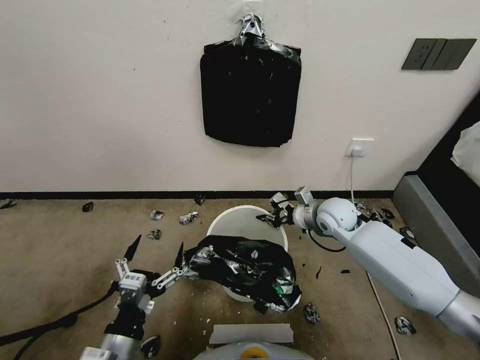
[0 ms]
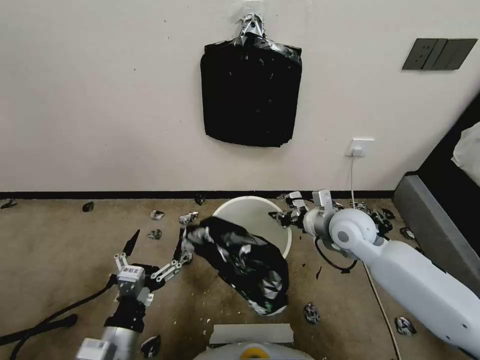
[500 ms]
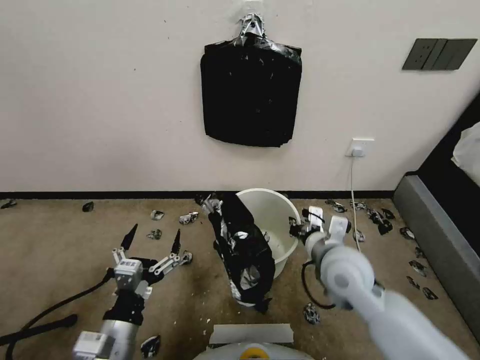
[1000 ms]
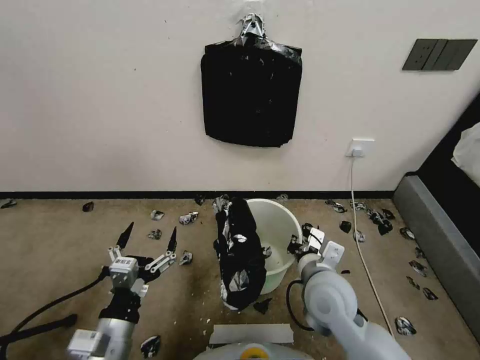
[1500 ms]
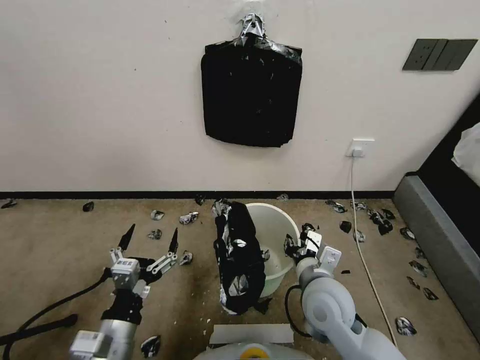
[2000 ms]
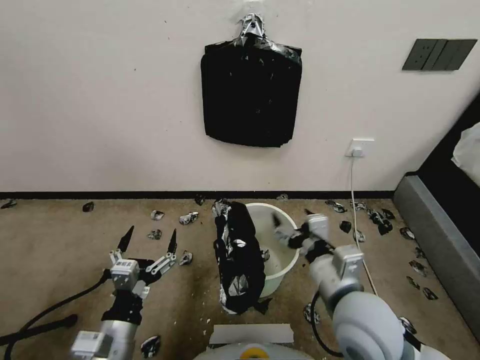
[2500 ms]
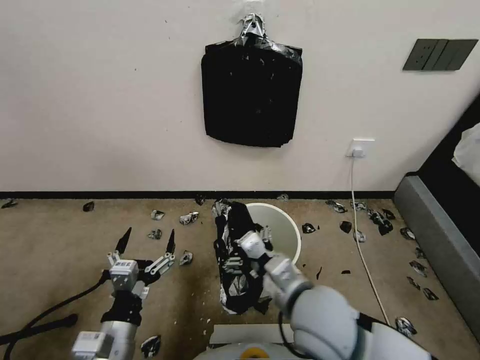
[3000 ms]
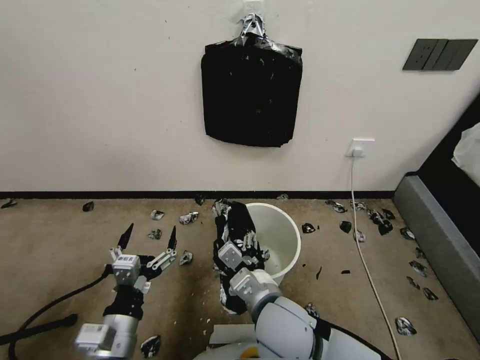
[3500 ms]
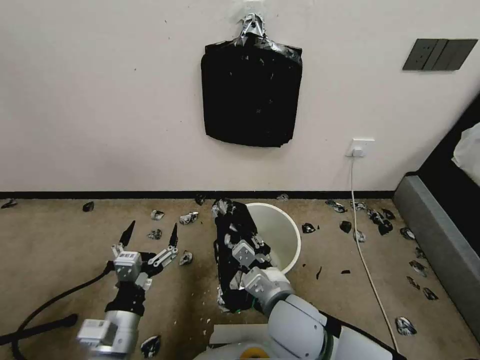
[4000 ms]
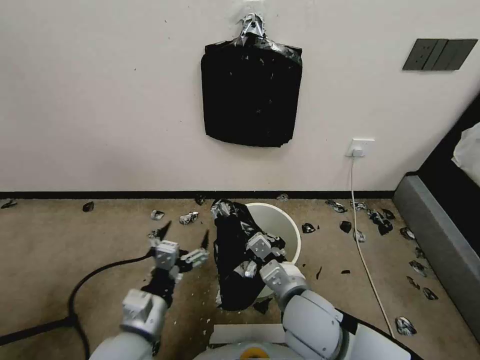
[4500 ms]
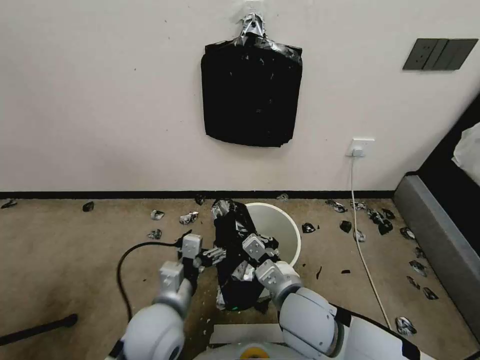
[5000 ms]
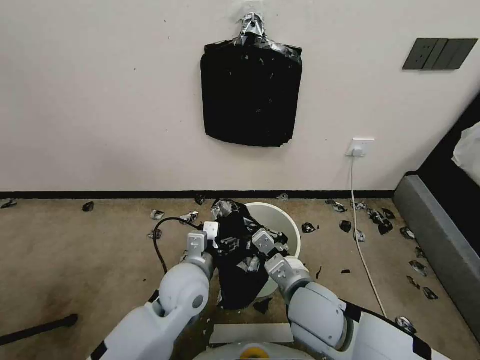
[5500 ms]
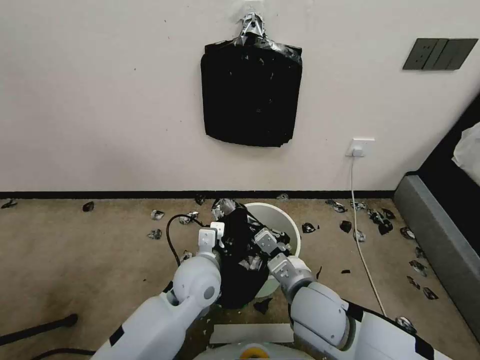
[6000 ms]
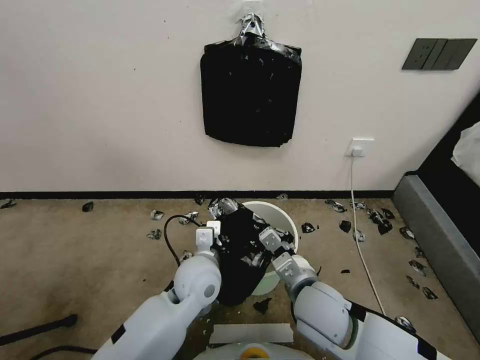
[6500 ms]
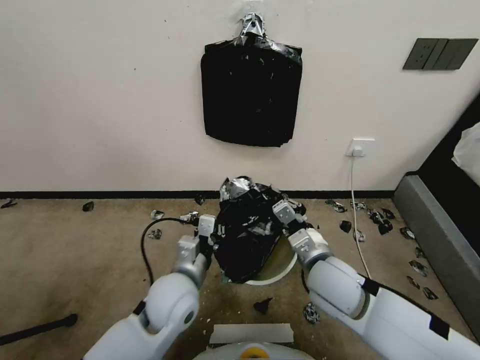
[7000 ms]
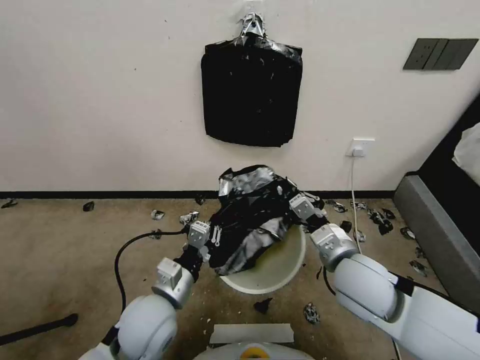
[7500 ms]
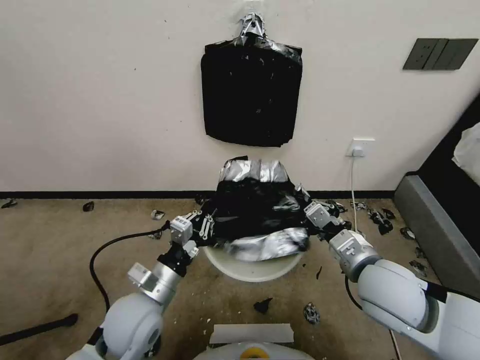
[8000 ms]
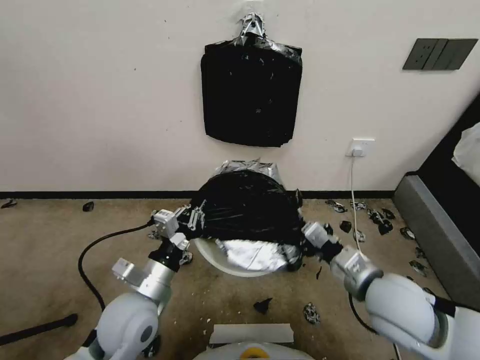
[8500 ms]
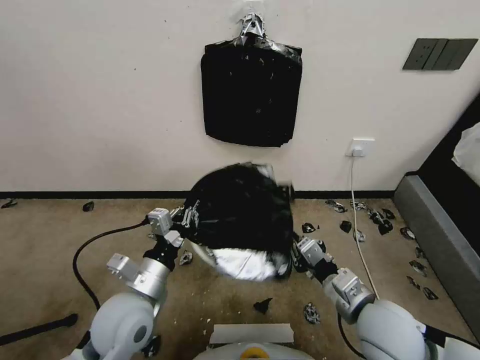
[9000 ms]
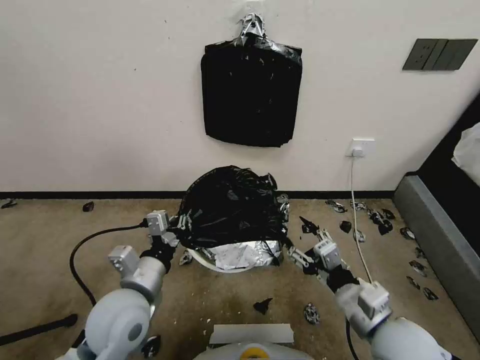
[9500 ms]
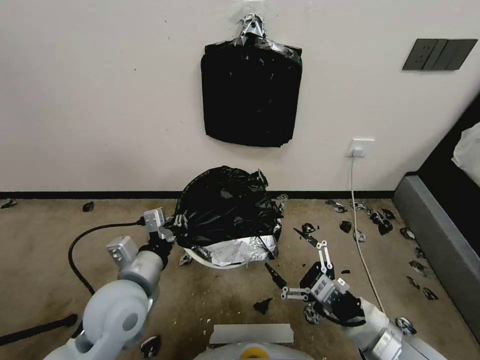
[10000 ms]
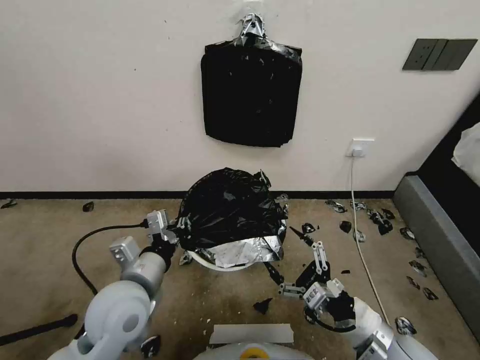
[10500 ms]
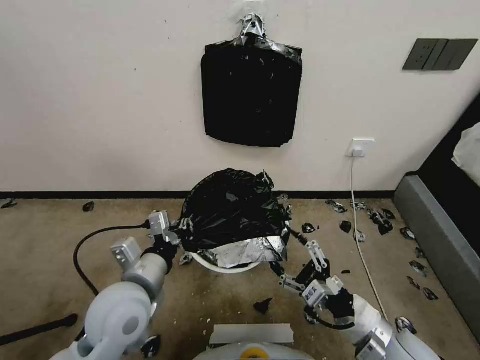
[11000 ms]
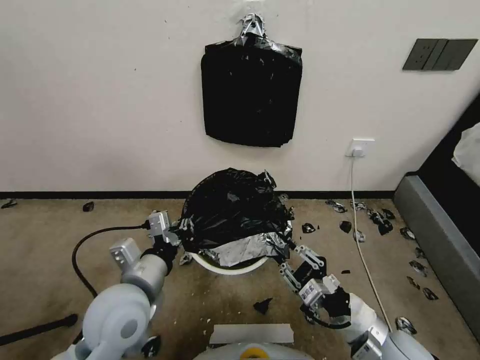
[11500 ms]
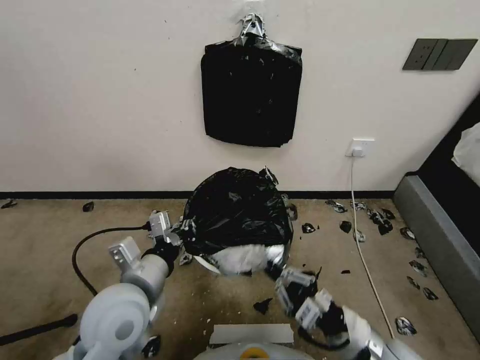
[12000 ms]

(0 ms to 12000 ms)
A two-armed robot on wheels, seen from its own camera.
Task of the whole recording: Place a trash bag onto the trash bin.
0 ms - 2000 ms: The right gripper moves backward and to the left, some 20 cm.
2000 ms - 4000 ms: The right gripper moves to the left, about 5 cm, and opens, then closes again.
4000 ms - 6000 ms: The left gripper moves forward and to the right, about 20 cm, and closes its fingers, while the right gripper shifts by about 5 cm, and closes its fingers.
6000 ms - 8000 ms: The right gripper travels to the right and upward by approximately 15 cm. The left gripper is displaced to the left and backward by approximately 15 cm, and closes up.
8000 ms - 10000 ms: The right gripper moves backward and downward, roughly 10 cm, and opens its fingers; the left gripper goes about 5 cm upward.
10000 ms - 12000 ms: The right gripper closes its fingers.

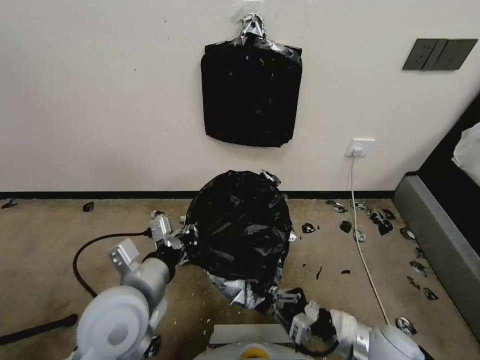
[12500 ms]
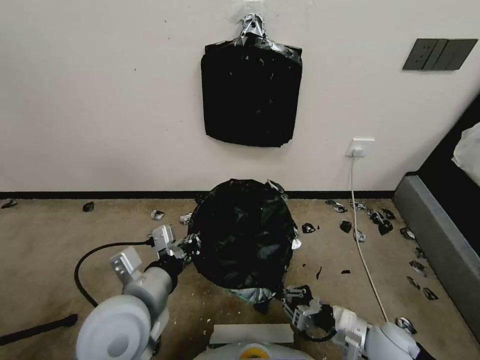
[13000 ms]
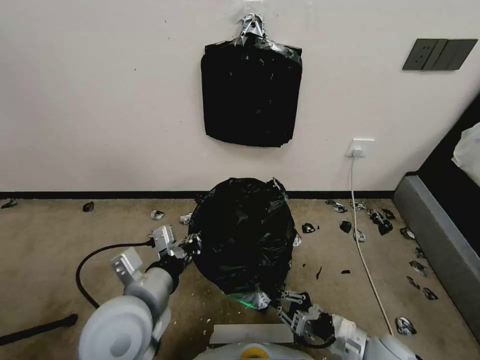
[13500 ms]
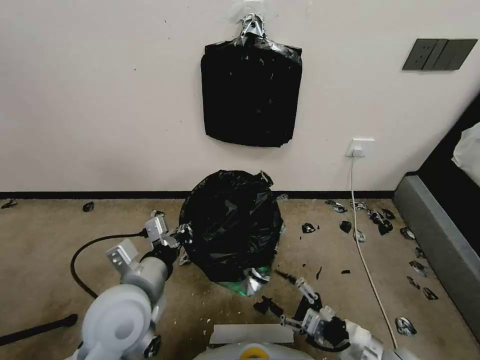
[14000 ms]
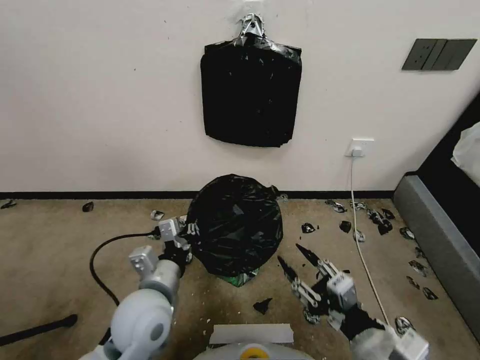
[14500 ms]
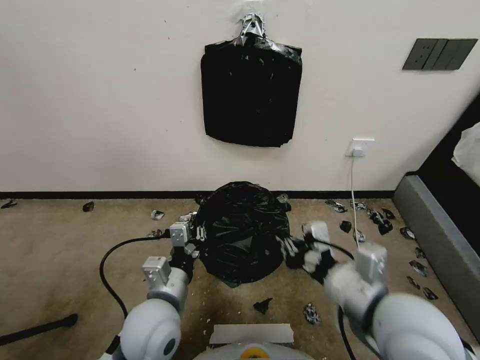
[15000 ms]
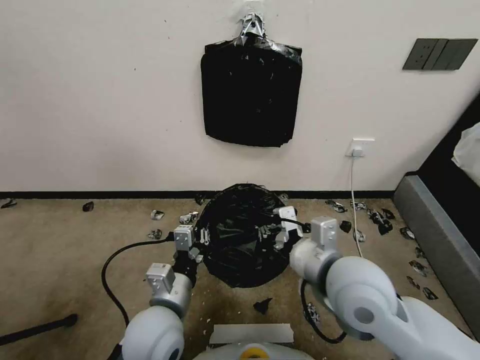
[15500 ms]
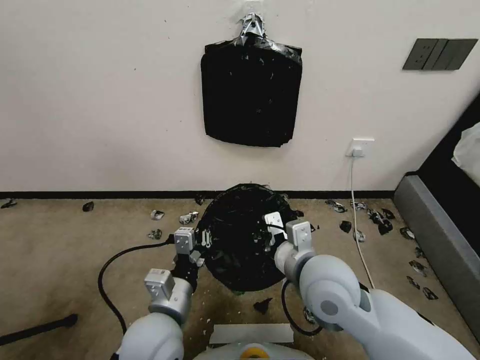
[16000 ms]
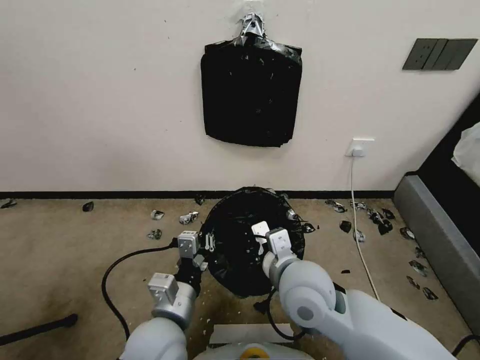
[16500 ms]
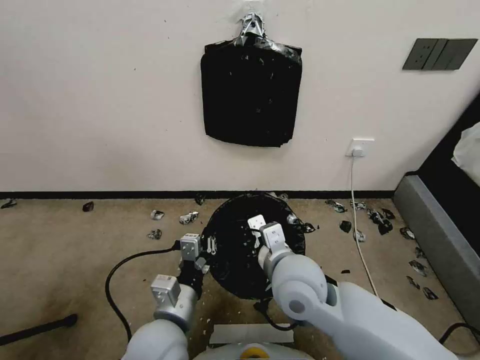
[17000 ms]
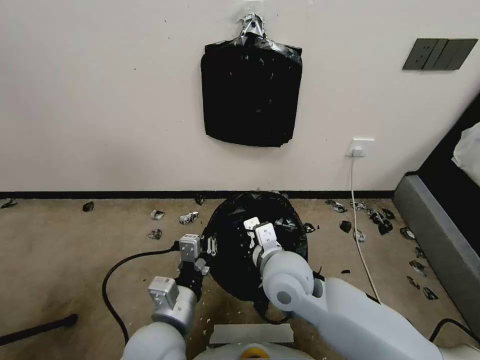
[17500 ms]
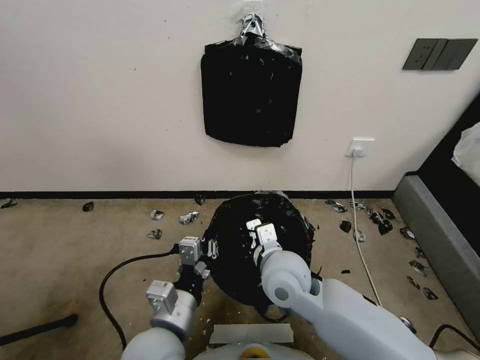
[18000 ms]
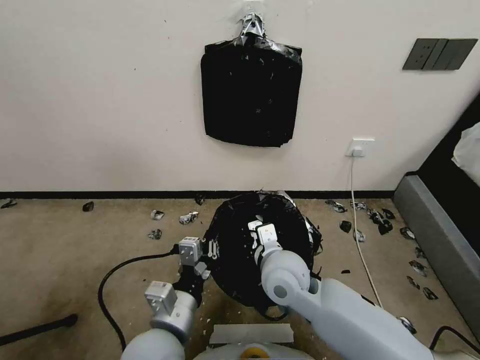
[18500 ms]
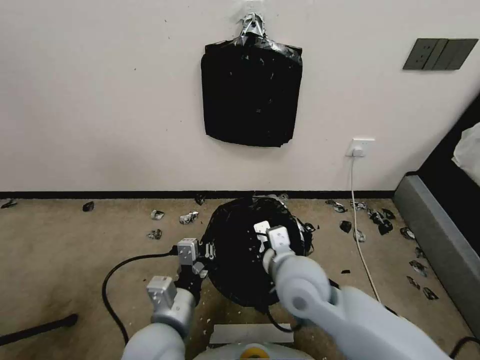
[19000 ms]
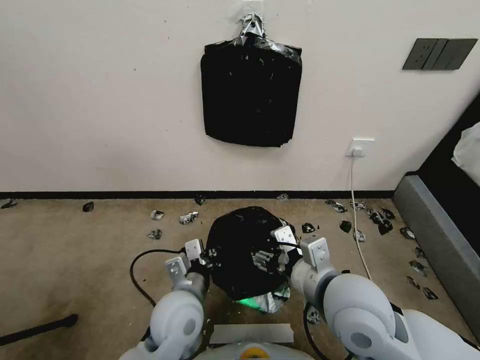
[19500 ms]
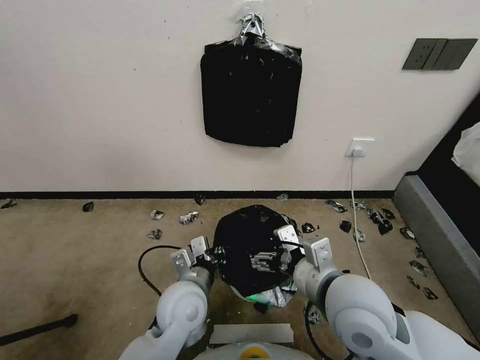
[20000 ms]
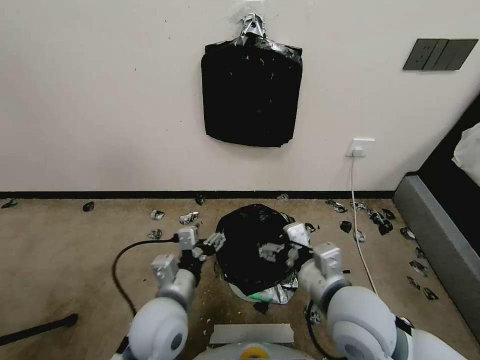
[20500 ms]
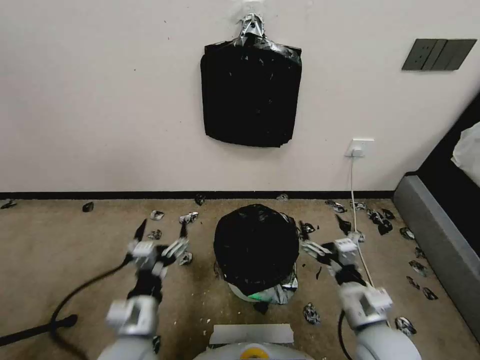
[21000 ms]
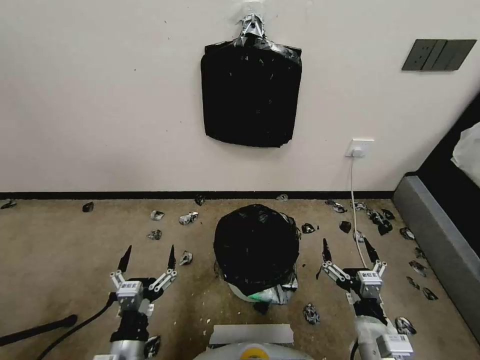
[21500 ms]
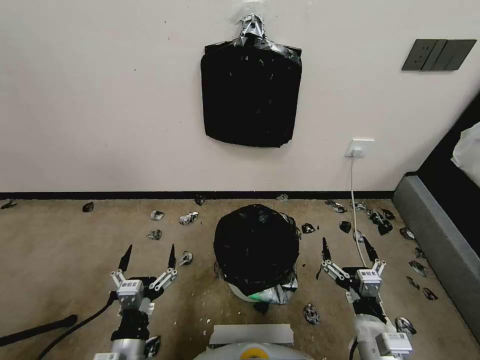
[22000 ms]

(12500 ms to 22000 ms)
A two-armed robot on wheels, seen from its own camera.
Task of the whole recording: Place a trash bag onto the trash bin.
12500 ms - 14500 ms: The right gripper moves upward and backward, roughly 15 cm, and opens up. Meanwhile the left gripper moves downward, roughly 5 cm.
14500 ms - 16500 ms: The left gripper ends up approximately 5 cm from where it was, while the right gripper travels to the left and forward by approximately 20 cm, and closes its fingers.
16500 ms - 18000 ms: The right gripper moves roughly 5 cm.
18000 ms - 20000 ms: The right gripper shifts roughly 15 cm to the right, backward and upward, and opens up. Meanwhile the left gripper travels forward by roughly 10 cm.
20000 ms - 22000 ms: The right gripper is displaced downward, backward and to the right by about 20 cm. The left gripper goes approximately 20 cm backward and to the left, and opens up.
